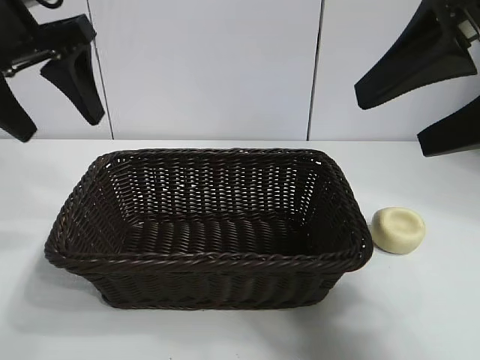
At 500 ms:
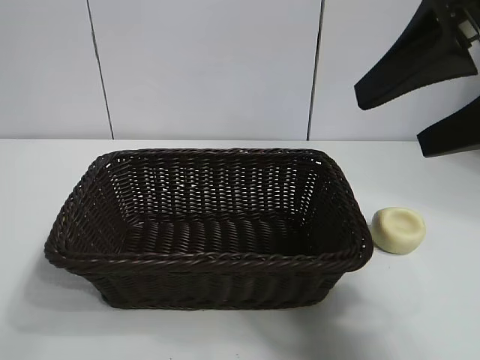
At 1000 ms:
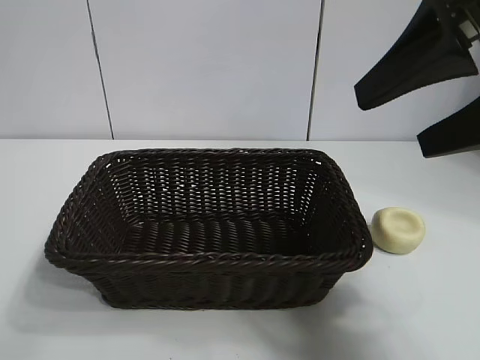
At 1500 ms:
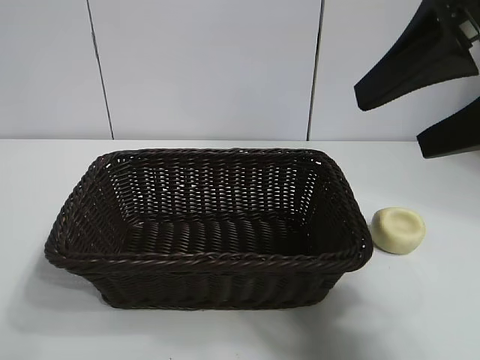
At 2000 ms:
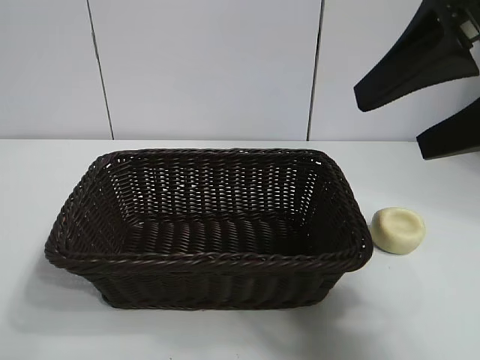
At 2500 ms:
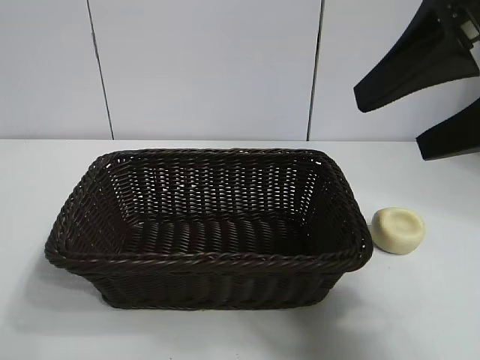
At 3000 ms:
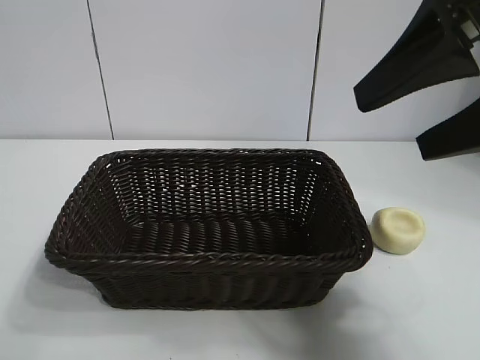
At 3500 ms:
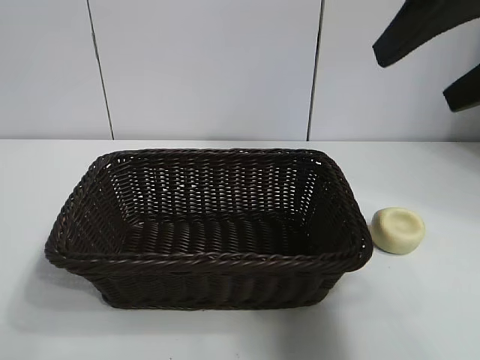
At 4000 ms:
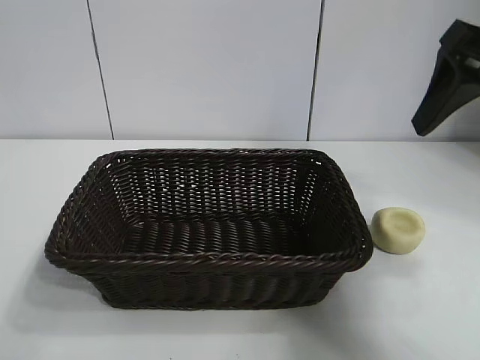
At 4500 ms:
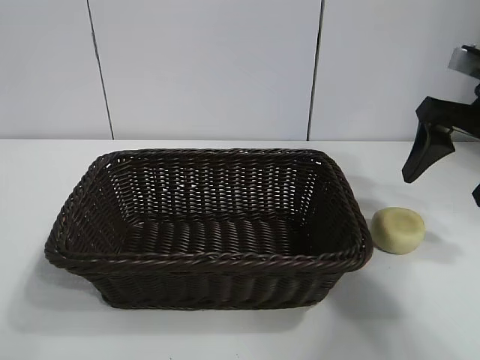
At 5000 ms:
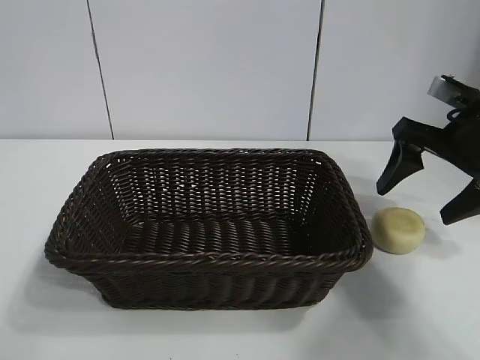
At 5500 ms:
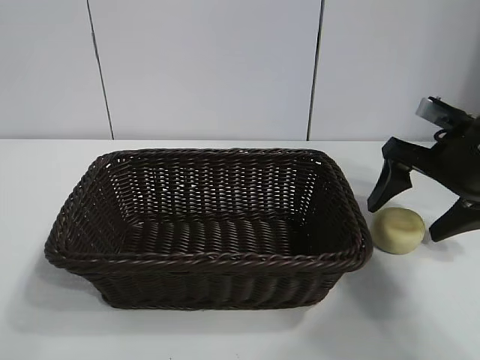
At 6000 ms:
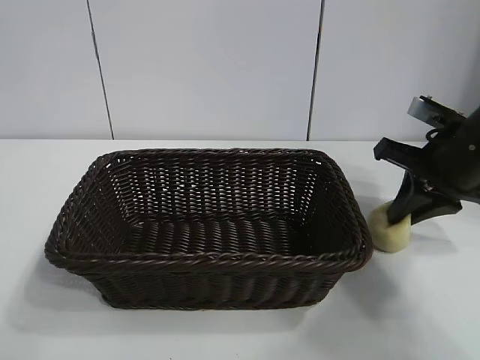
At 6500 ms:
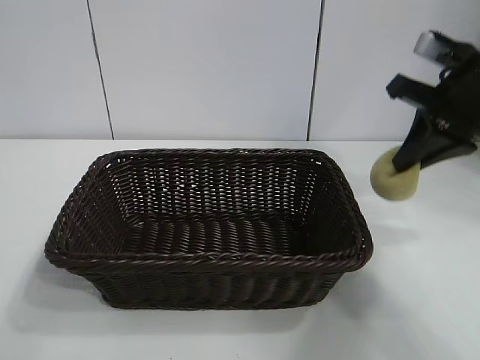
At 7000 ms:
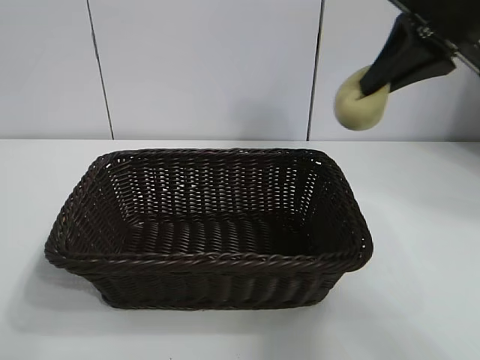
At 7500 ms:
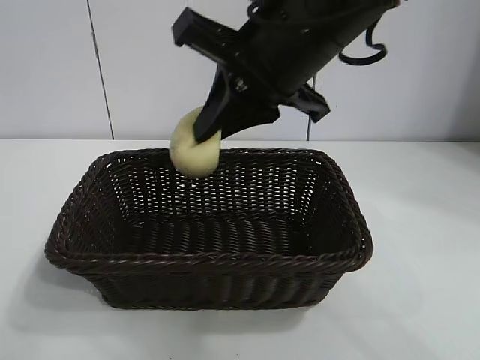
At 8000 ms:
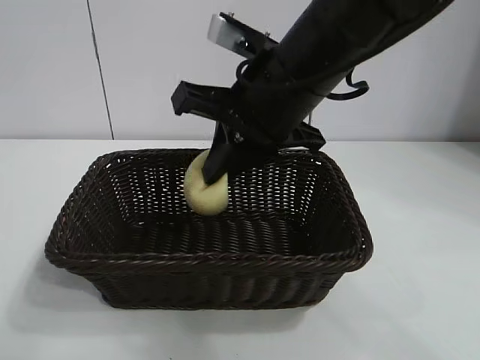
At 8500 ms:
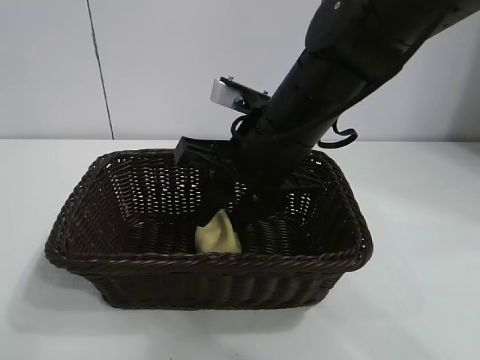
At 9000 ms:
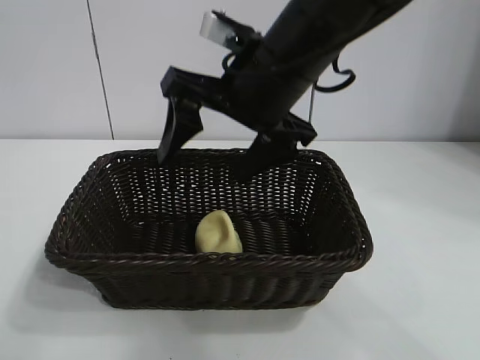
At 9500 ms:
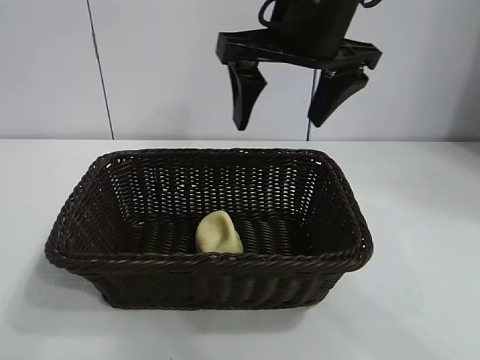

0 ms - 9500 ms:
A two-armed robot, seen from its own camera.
Task of the whole recording: pick up the egg yolk pastry and put it into the basket.
Step, 0 ms - 6000 ms: Grasp egg yolk pastry with right gripper.
Step, 6500 ms - 8500 ms: Place the egg yolk pastry in the basket with right gripper.

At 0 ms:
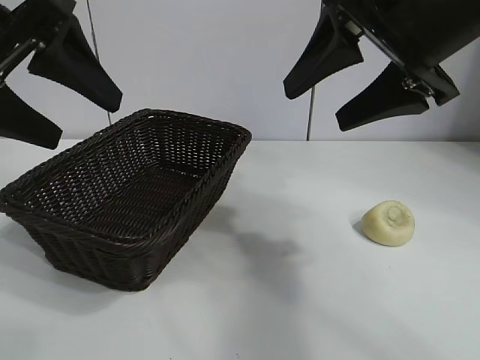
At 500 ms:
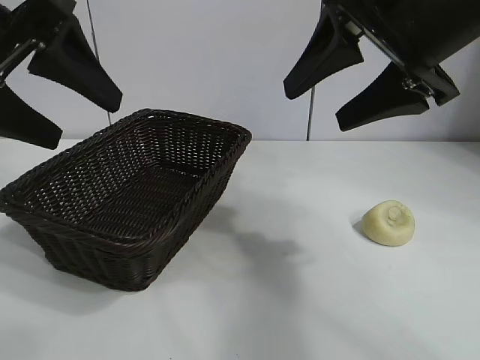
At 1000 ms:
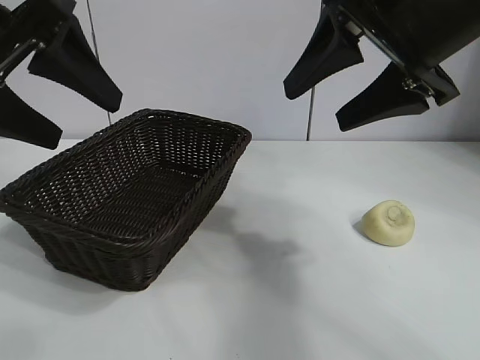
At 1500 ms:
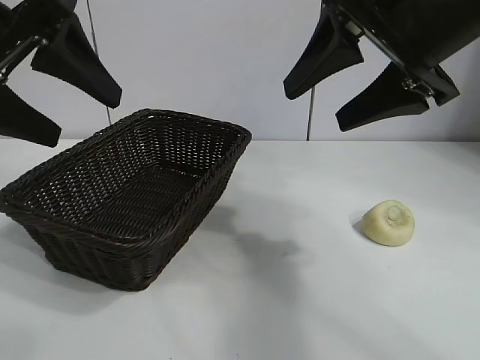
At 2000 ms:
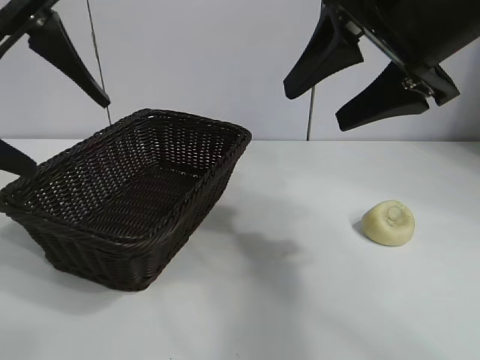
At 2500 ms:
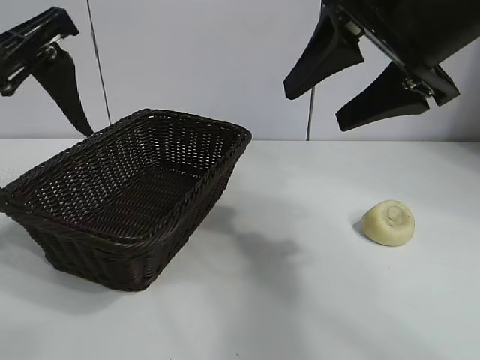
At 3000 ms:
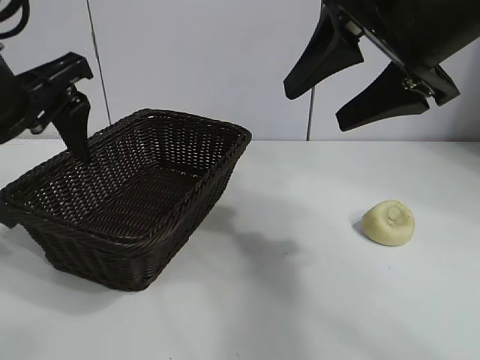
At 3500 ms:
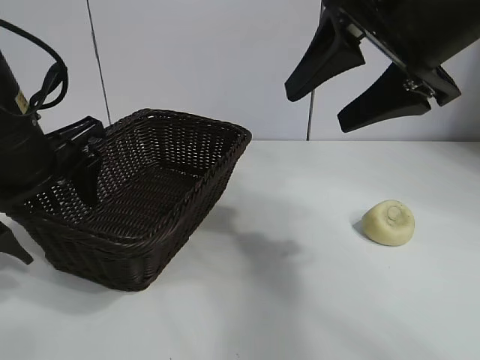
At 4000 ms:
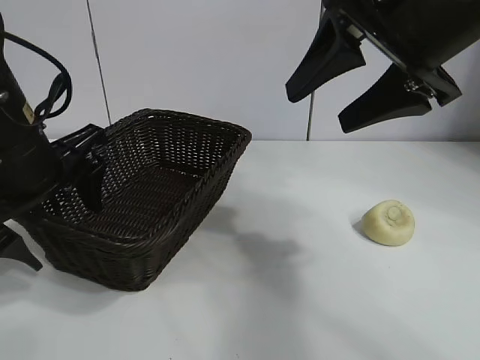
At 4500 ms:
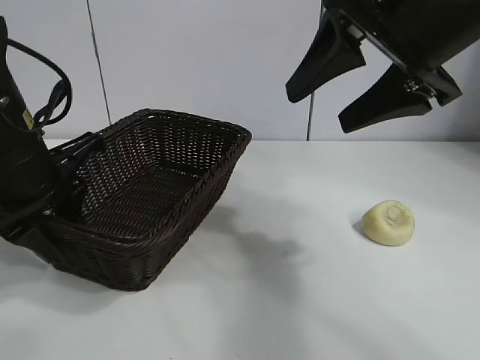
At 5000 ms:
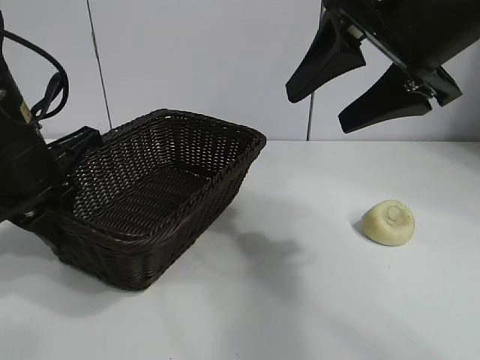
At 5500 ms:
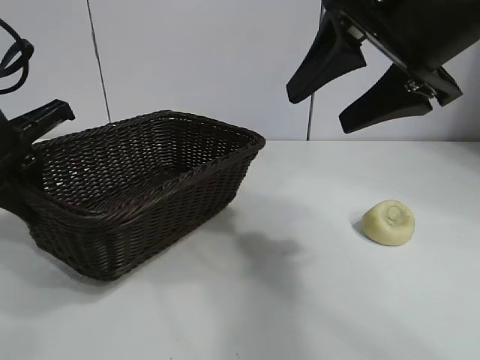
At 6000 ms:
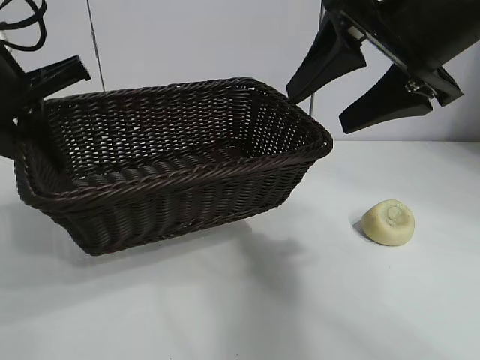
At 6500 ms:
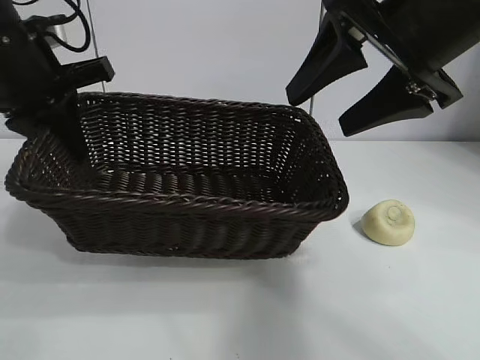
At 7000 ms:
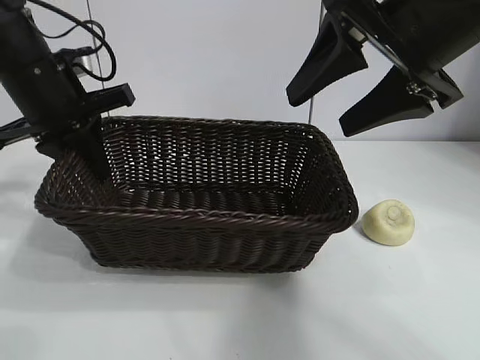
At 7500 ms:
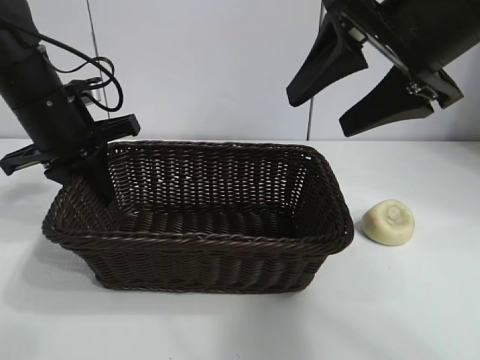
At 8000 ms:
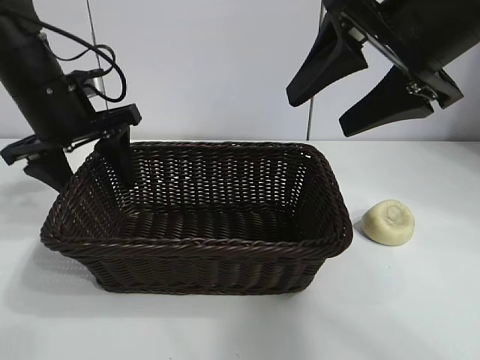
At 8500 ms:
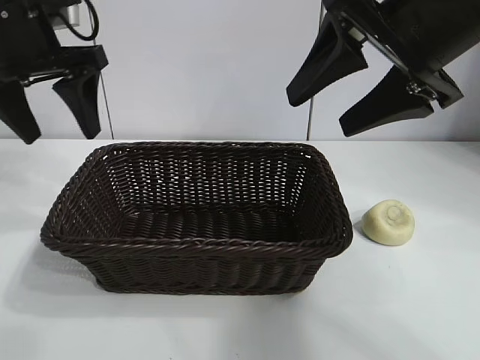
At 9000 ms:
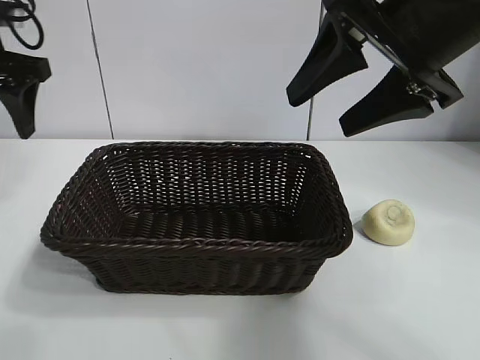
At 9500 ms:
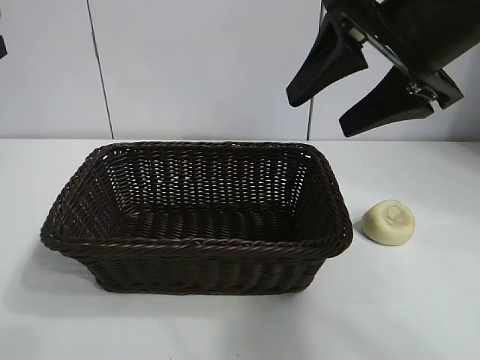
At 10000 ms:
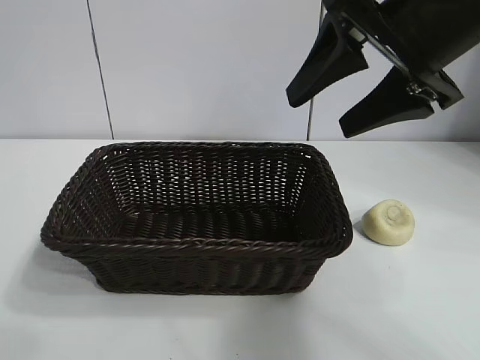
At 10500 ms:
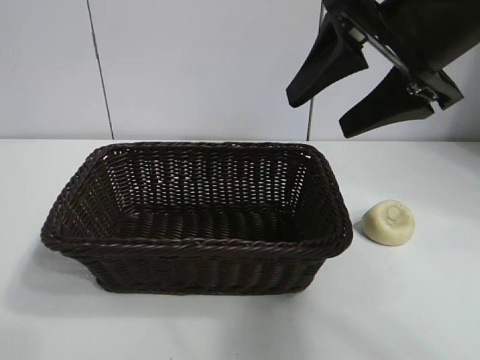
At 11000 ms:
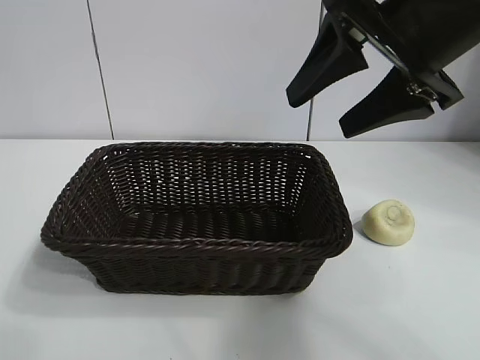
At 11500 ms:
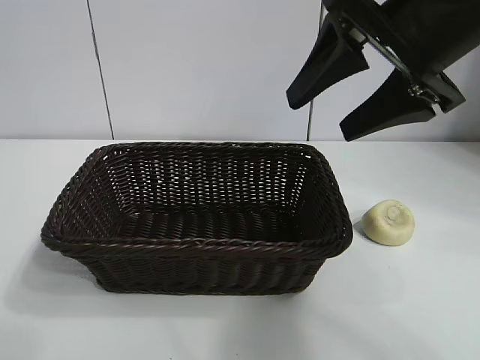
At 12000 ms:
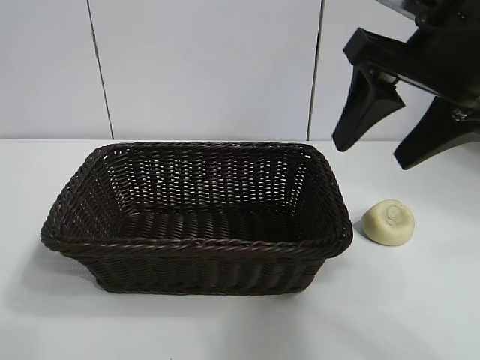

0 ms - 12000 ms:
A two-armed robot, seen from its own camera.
Task of the whole recording: pick up the egg yolk pastry and put it into the basket.
Step, 1500 ms - 4500 ms: Grasp the basket with left gripper.
Step, 5000 ms - 8000 ms: Place the basket in the center of view with left gripper.

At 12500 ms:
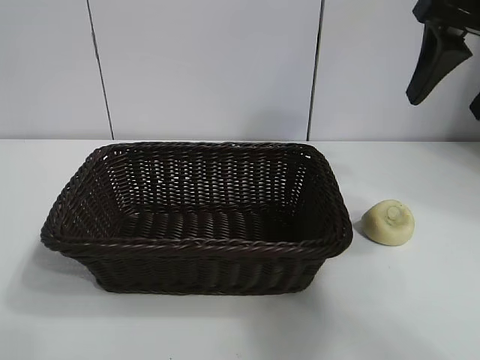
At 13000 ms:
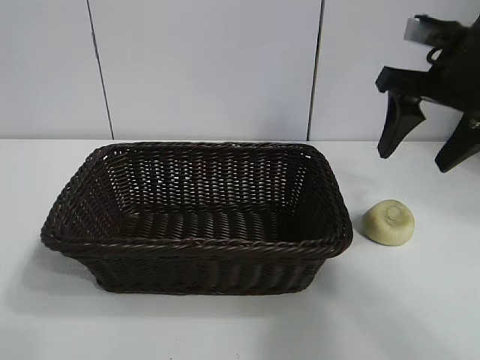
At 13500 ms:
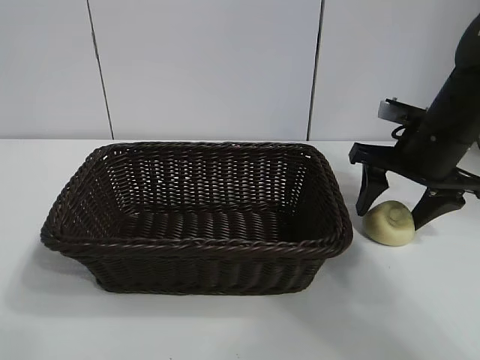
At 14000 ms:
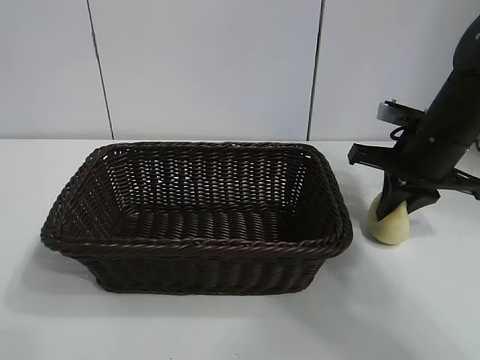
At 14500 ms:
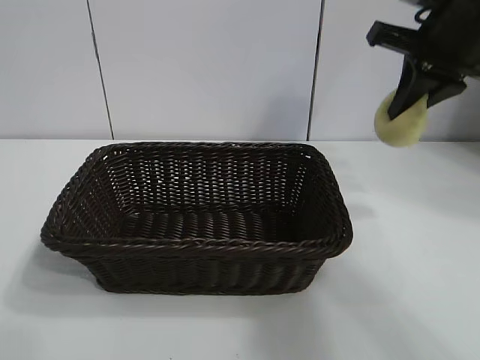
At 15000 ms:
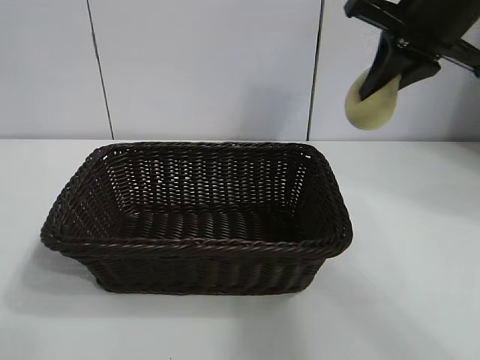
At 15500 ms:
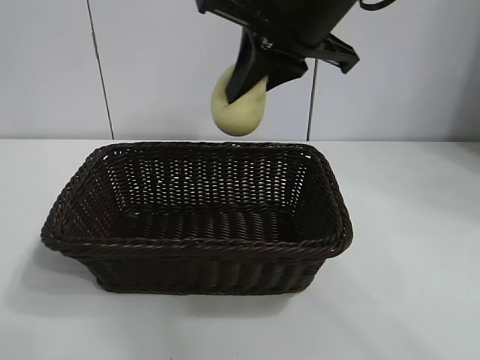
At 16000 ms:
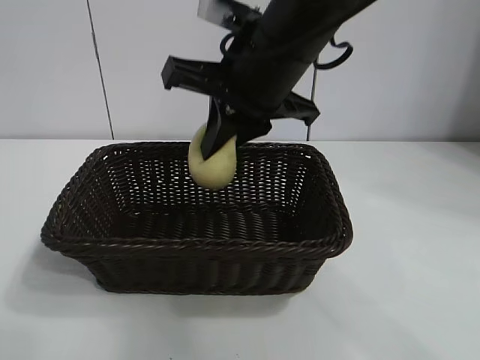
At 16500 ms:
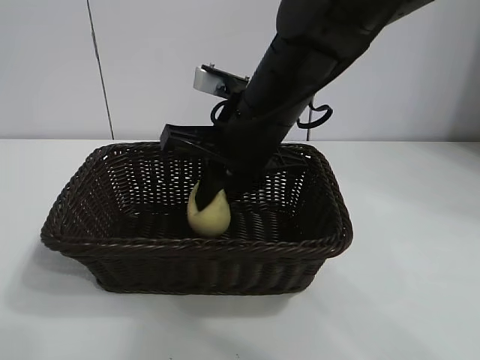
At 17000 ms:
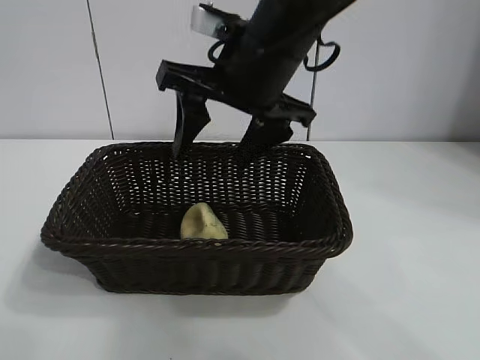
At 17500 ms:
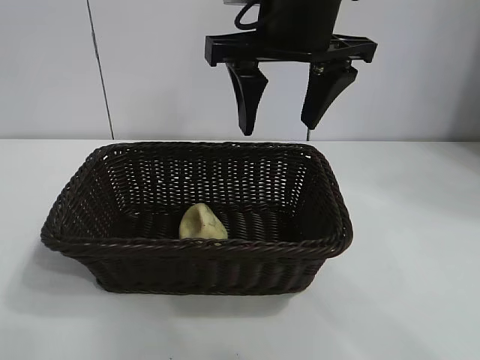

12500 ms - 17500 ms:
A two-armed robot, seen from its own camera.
Task of the whole recording: pick up the egg yolk pastry and put it into the basket.
Step, 14000 ms - 16500 ms: Place the egg yolk pastry in the basket with right gripper.
